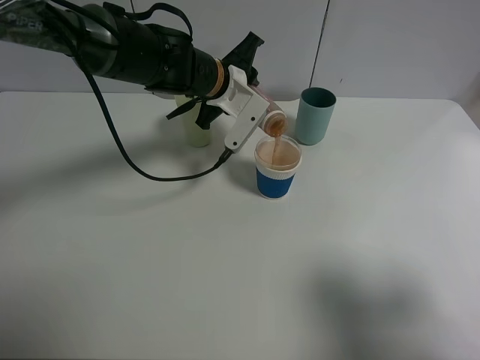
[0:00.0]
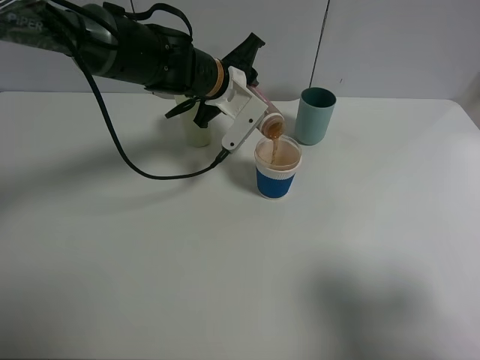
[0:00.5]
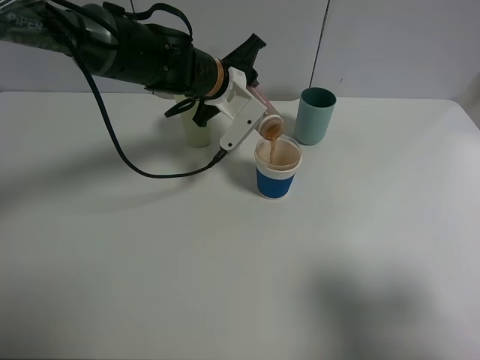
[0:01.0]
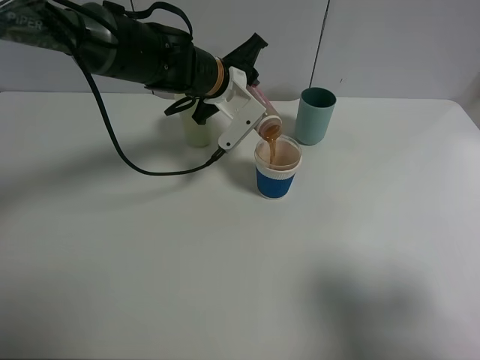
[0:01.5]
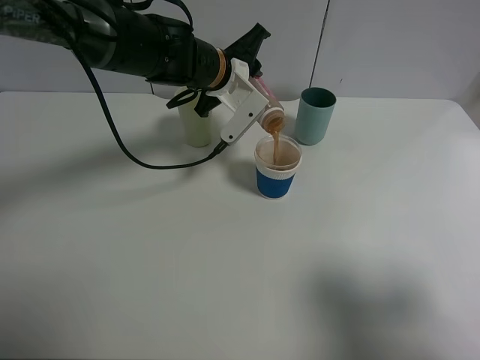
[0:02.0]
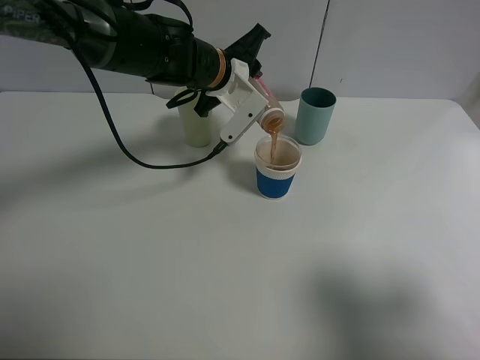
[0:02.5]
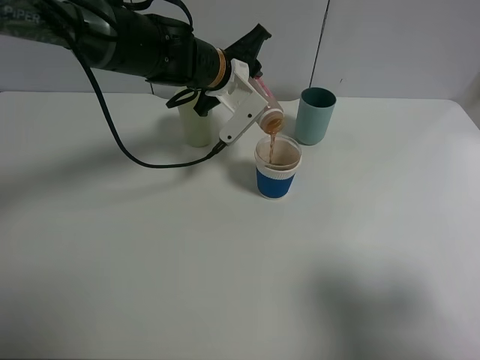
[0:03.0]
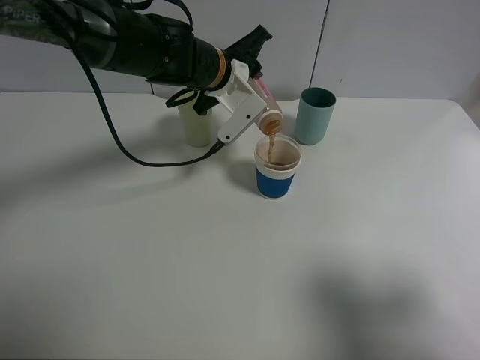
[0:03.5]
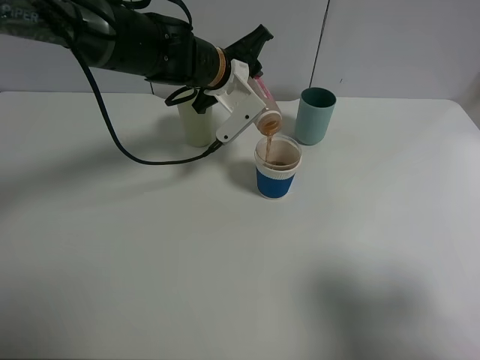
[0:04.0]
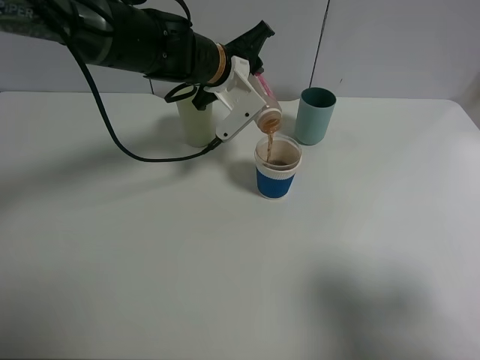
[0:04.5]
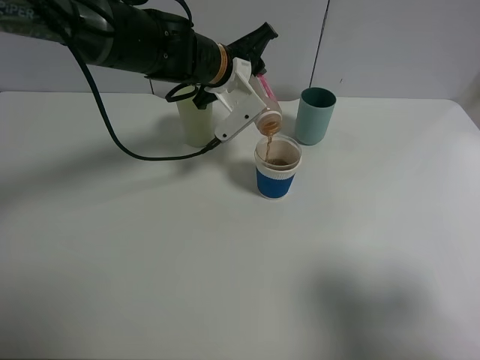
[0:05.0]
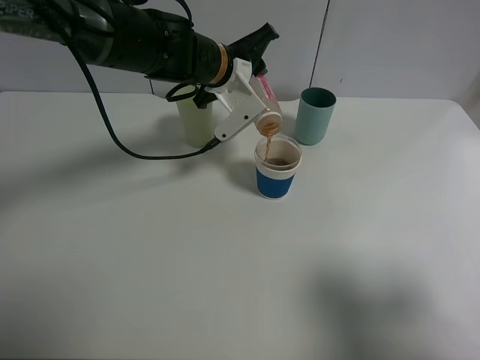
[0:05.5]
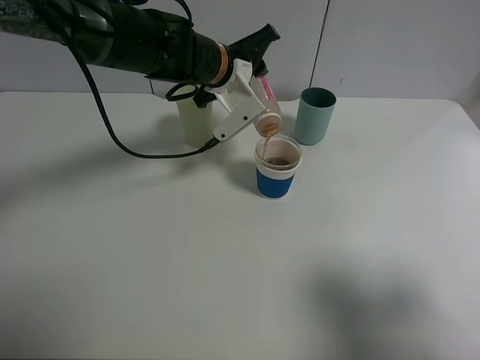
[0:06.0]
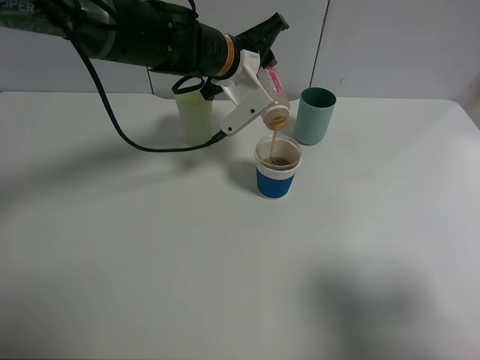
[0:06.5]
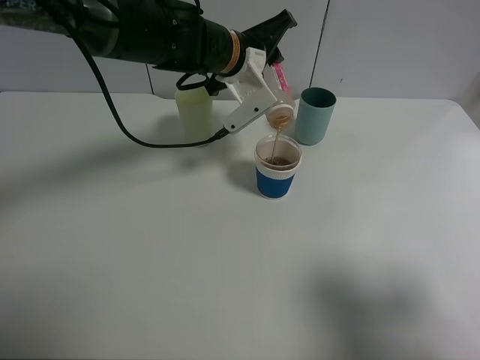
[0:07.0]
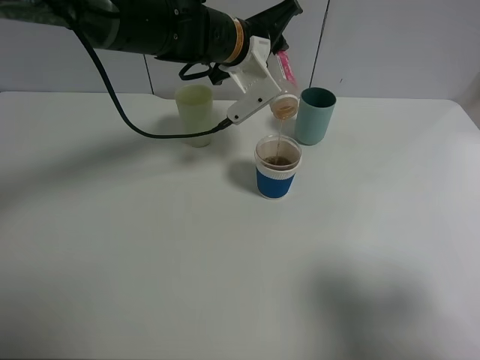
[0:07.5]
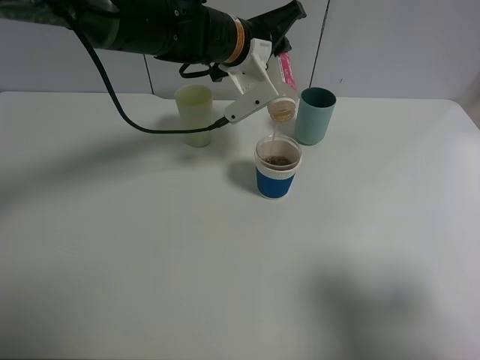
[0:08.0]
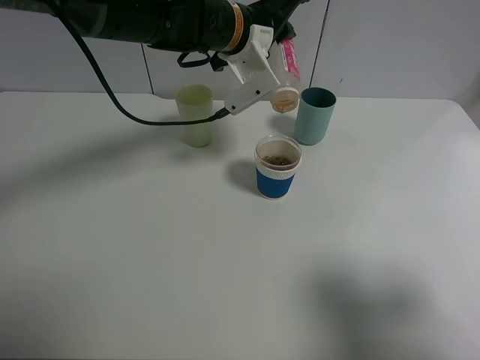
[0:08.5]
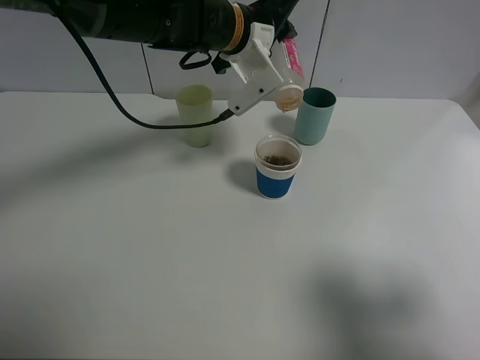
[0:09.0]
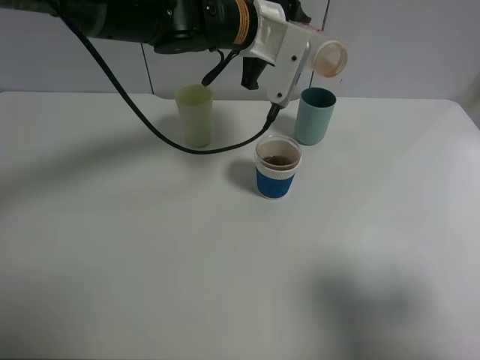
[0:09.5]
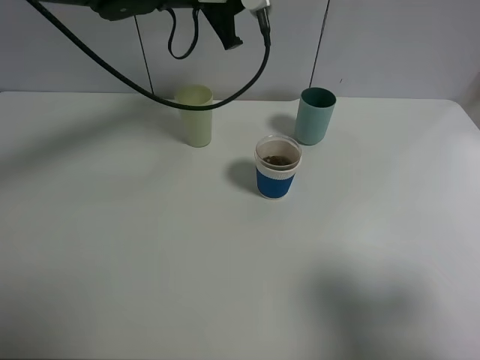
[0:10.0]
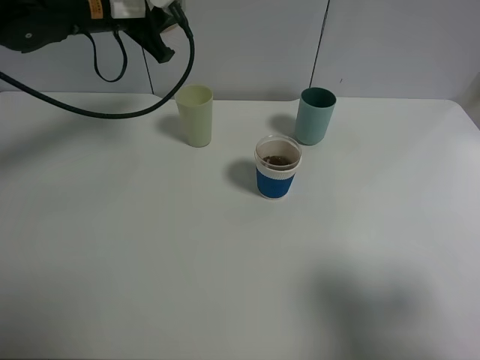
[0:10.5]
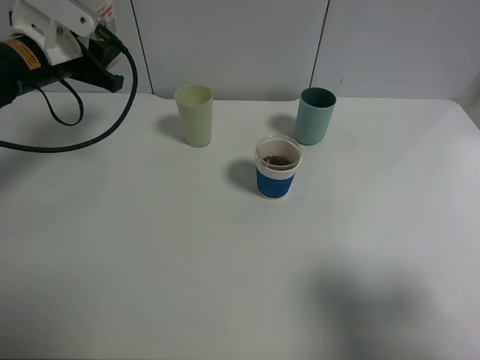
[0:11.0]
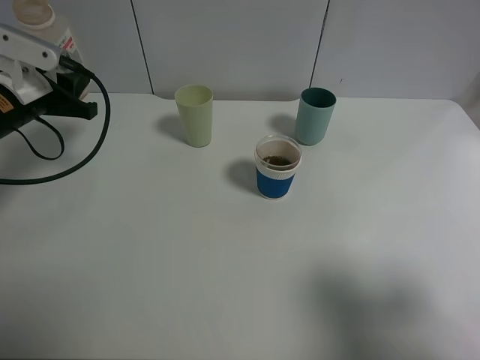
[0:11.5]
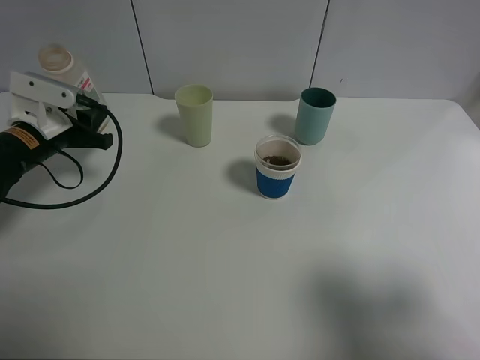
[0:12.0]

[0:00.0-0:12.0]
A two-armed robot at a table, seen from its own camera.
Task of the whole recording: use a clamp to hold the bottle of the drink, pour the beverage into a random cup, then clamp the cup containing the drink and pour the drink into another random cup.
Step, 0:00.0 to 0:09.0: Pour the drink into the paper cup with left gripper.
0:00.0 to 0:02.0: The grippers move only a little.
0:02.0 to 0:04.0: Both grippers stay about where they are.
0:04.0 to 0:08.0: The grippers make only small movements.
0:08.0 to 0:10.0: The left gripper heads upward, covering approximately 5 cm.
0:10.0 to 0:12.0: The left gripper travels to the left, downward and backward by some 30 cm.

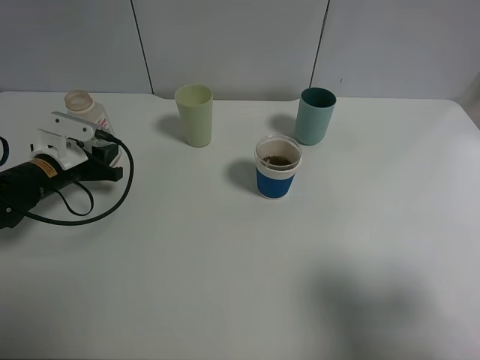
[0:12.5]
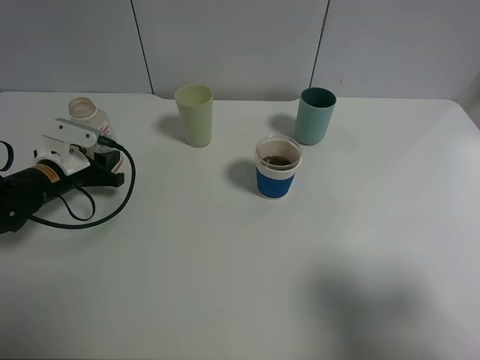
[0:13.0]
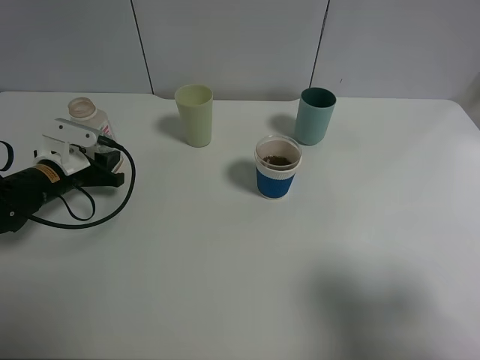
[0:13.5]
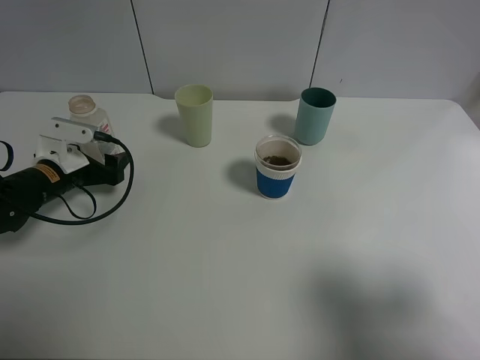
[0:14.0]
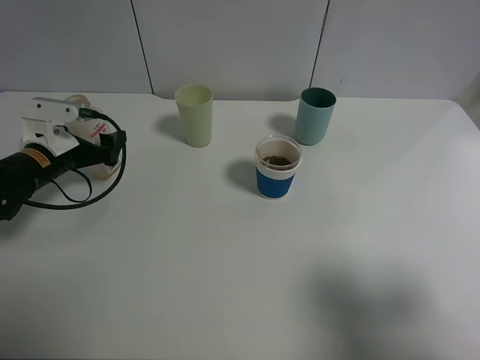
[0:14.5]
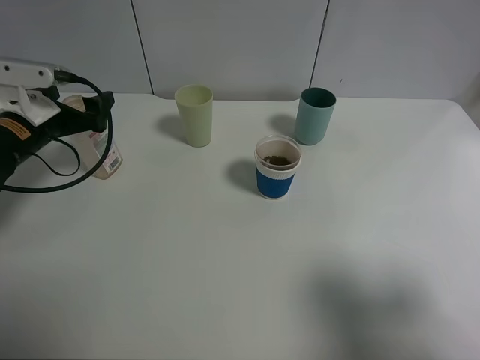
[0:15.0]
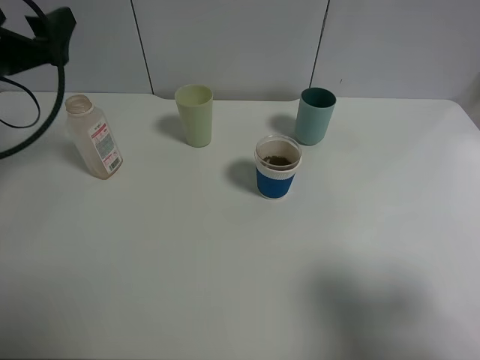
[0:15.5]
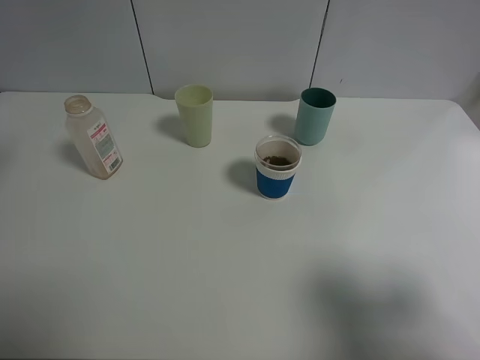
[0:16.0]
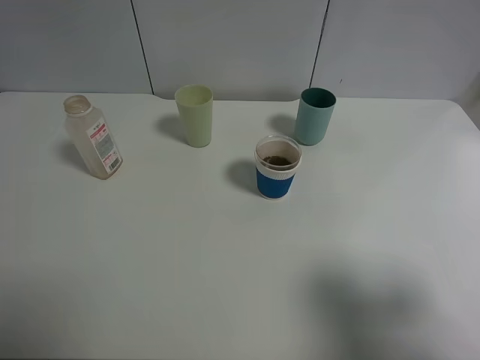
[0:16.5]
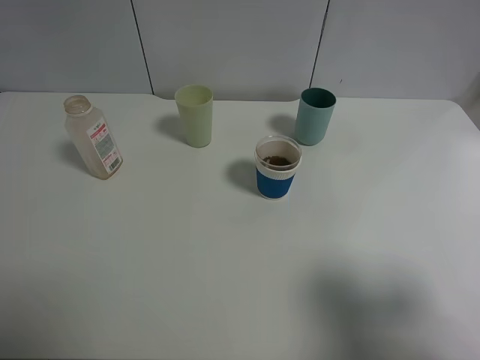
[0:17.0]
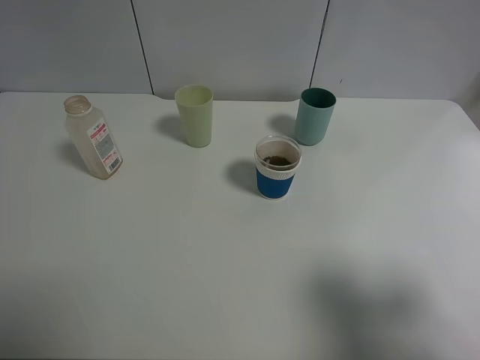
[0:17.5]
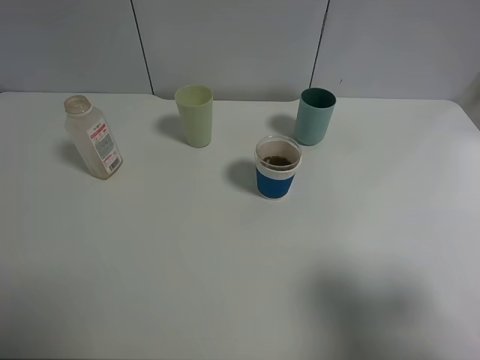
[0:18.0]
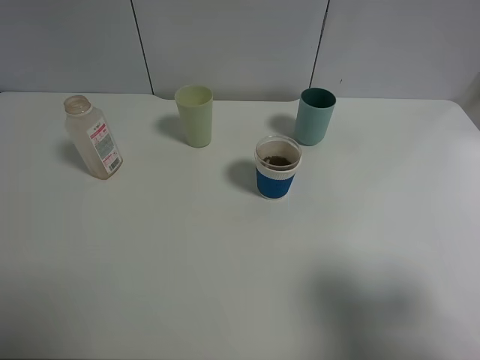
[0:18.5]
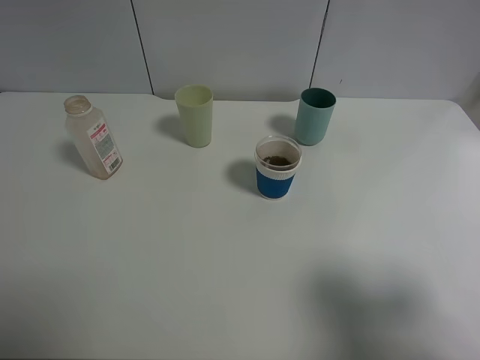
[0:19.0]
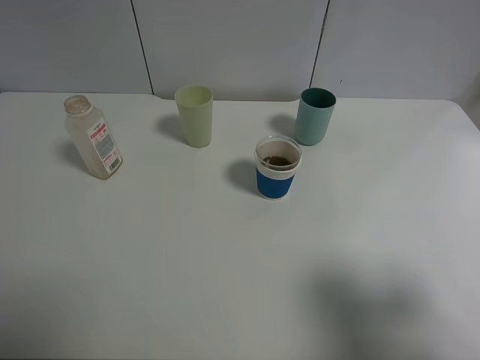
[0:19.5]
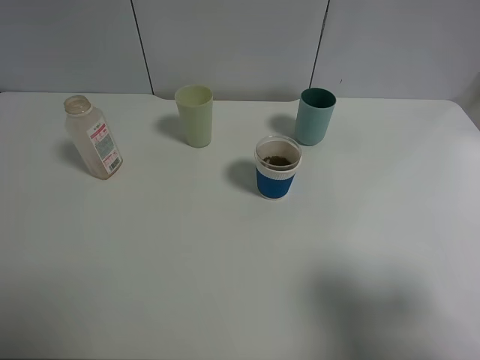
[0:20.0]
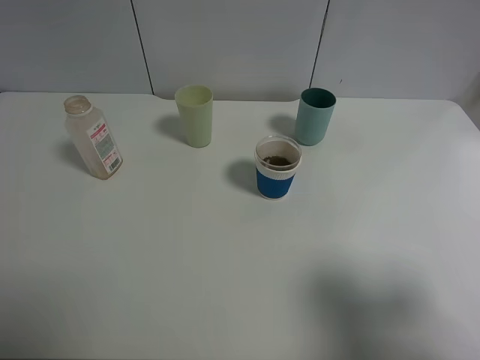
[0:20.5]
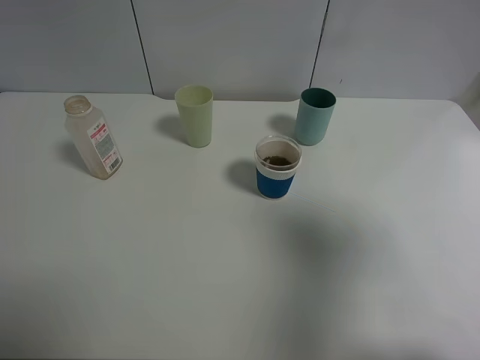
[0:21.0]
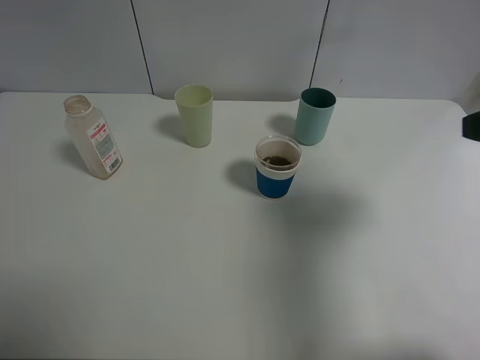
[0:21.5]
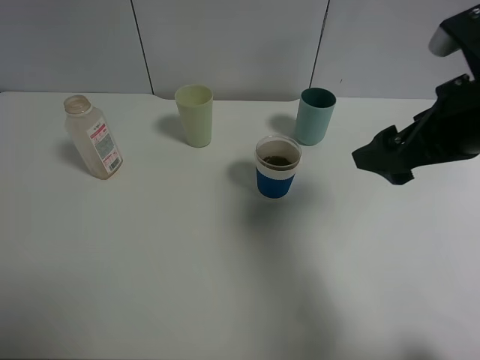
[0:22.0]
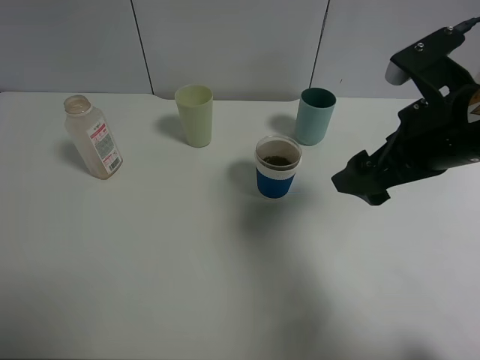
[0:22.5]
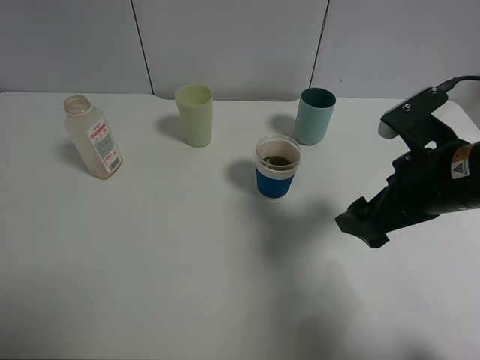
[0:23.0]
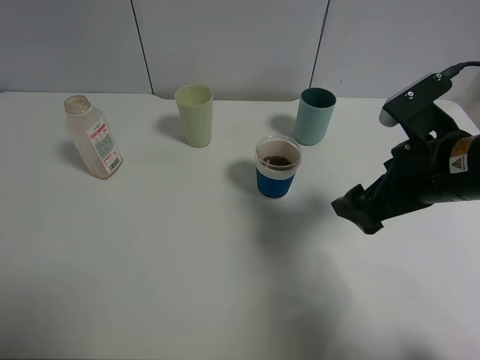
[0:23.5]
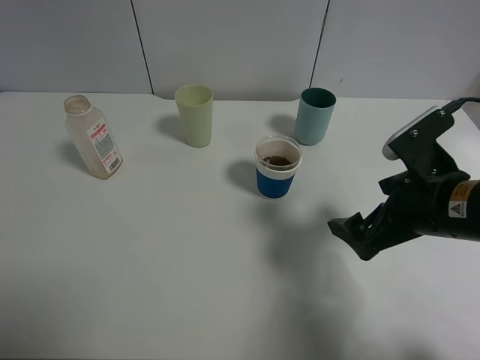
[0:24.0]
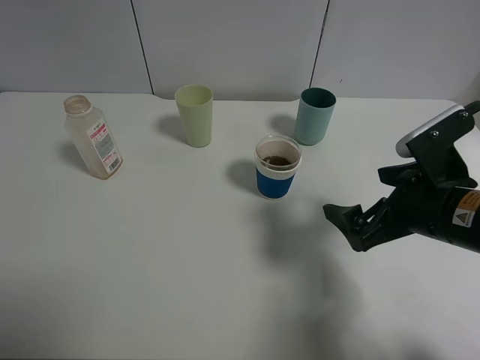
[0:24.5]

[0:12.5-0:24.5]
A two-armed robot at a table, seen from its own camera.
Task of the whole recording: use a clamp to hold the bottle of the drink, pour the beverage into a random cup, then clamp the cup containing the drink and pour the drink into another random cup.
Step, 0:12.5 to 0:15.0: Place the drink bottle on the table with left gripper.
0:12.5 to 0:14.5: The left gripper opens up.
0:14.5 to 0:16.5: The left gripper is displaced upward and backward by about 30 cm.
0:20.5 to 0:22.5: The right gripper goes roughly 20 cm forward and to the left.
0:22.5 to 0:24.5: The right gripper heads downward, covering approximately 10 cm.

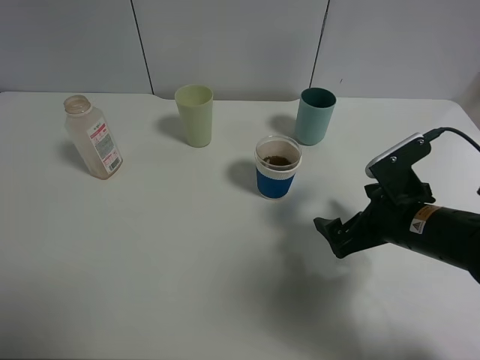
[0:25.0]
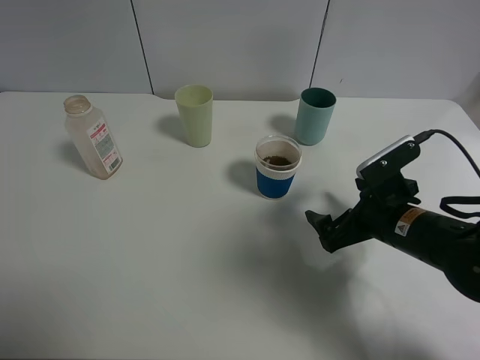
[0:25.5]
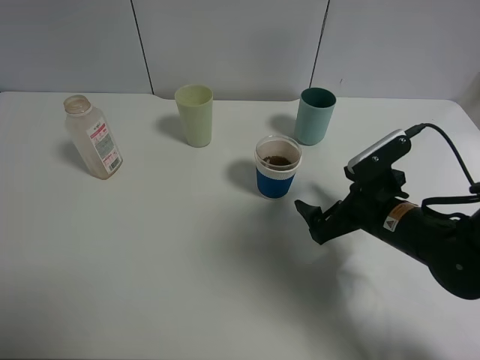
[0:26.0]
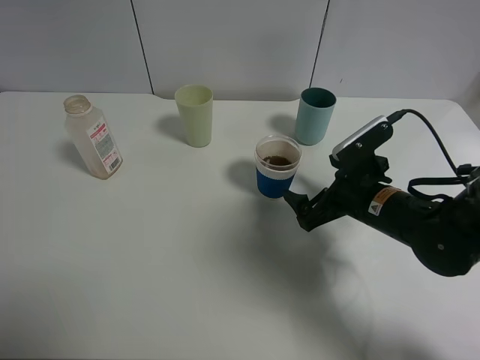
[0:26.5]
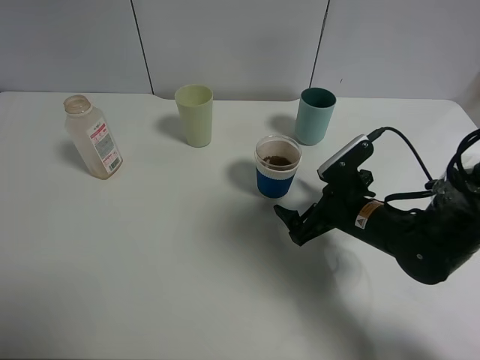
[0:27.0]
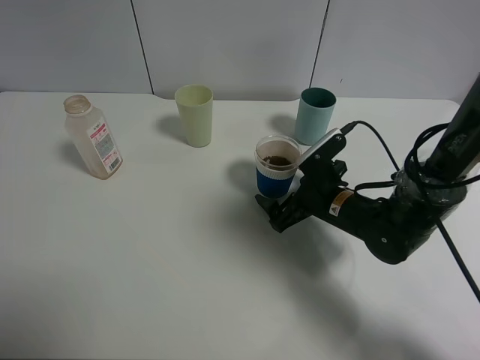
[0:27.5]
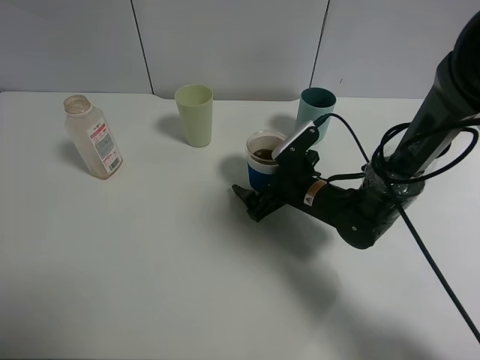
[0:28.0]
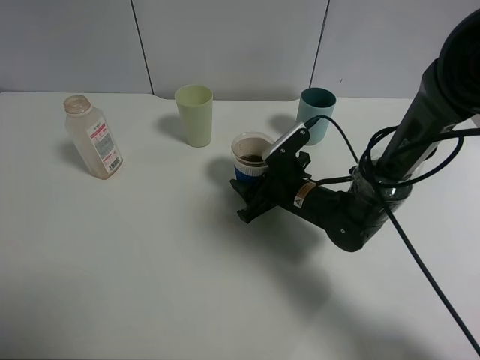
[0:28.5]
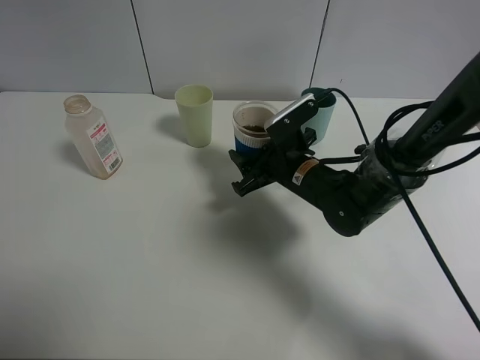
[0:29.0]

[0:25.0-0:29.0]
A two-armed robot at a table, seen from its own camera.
Task of the whole recording: use a clamp to hold the bottle of the drink, pour the beverage into a random cup, then clamp the cup containing the drink and pour the drink into another random cup.
0:25.0 to 0:27.0: The right gripper travels downward by about 5 cm.
0:27.0 to 0:29.0: The right gripper shifts approximately 10 cm to the left and forward, and closes.
